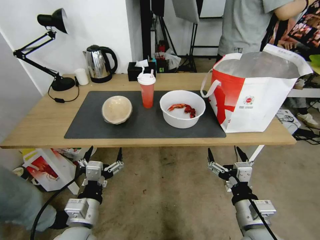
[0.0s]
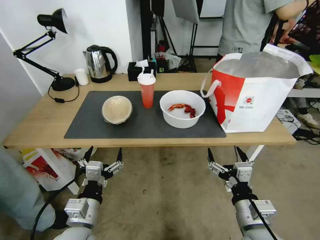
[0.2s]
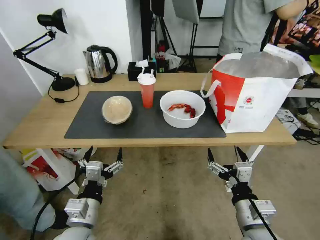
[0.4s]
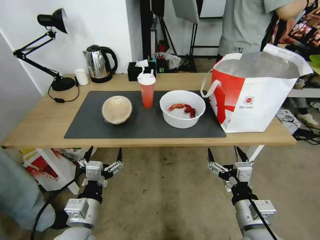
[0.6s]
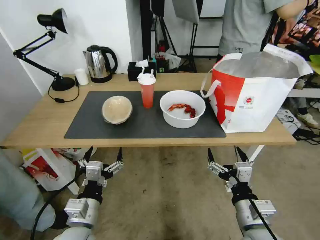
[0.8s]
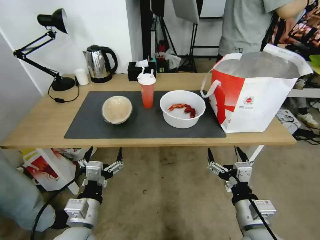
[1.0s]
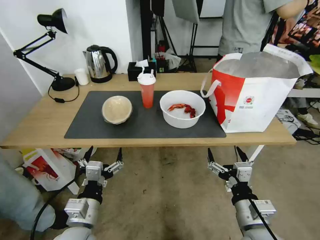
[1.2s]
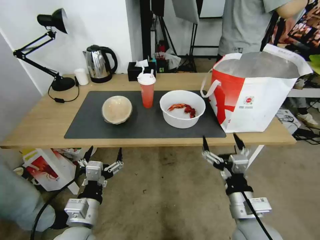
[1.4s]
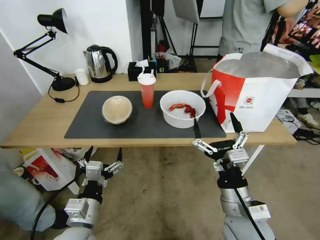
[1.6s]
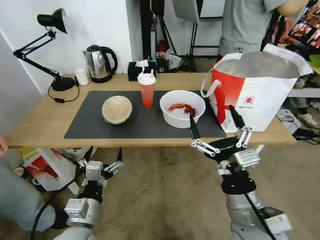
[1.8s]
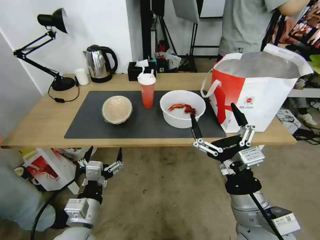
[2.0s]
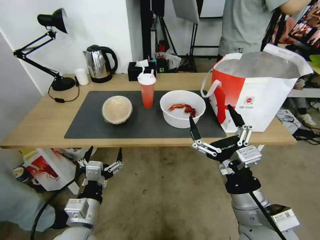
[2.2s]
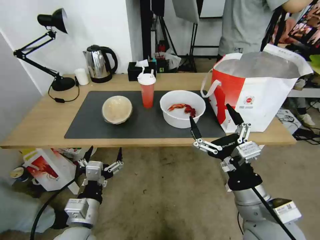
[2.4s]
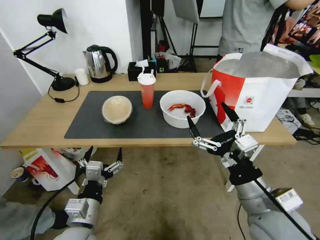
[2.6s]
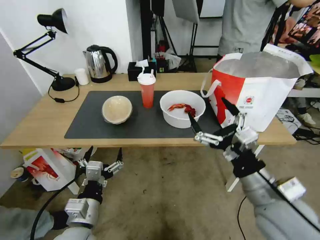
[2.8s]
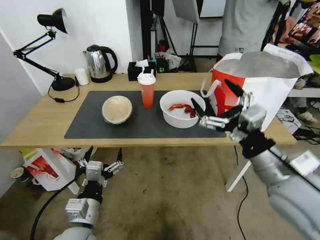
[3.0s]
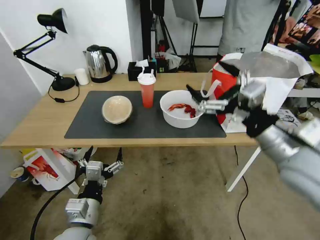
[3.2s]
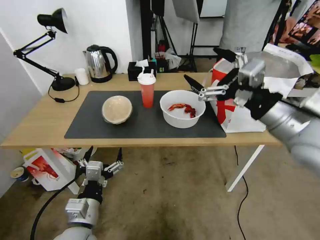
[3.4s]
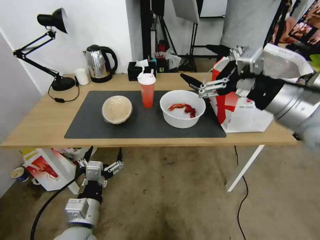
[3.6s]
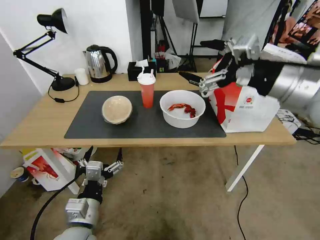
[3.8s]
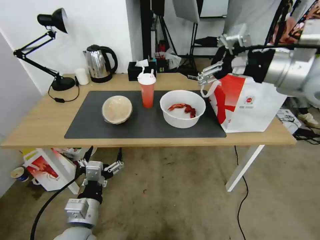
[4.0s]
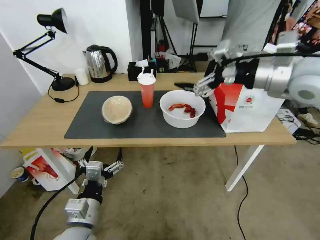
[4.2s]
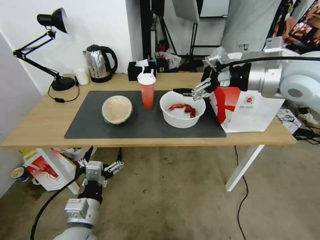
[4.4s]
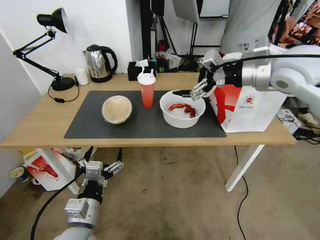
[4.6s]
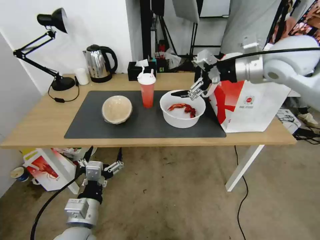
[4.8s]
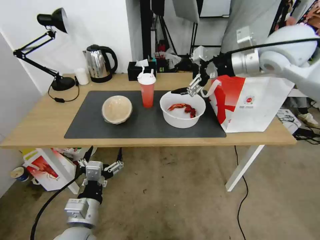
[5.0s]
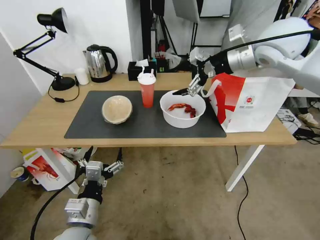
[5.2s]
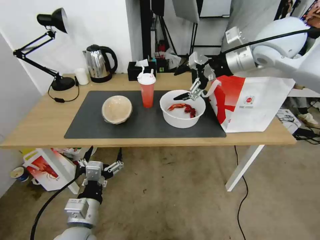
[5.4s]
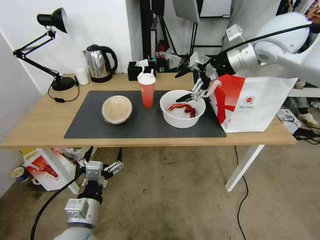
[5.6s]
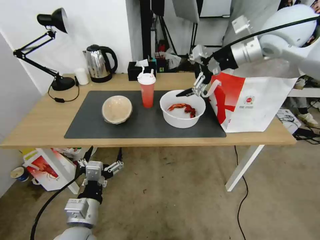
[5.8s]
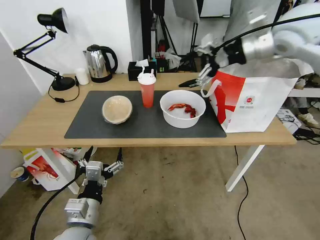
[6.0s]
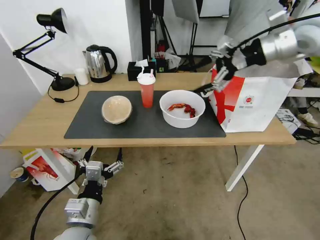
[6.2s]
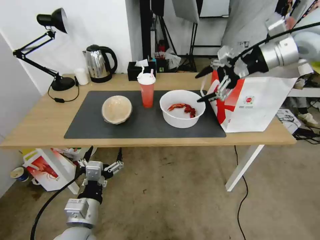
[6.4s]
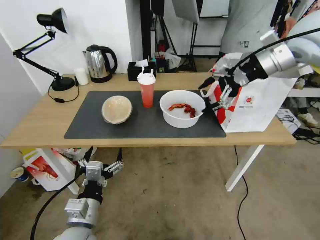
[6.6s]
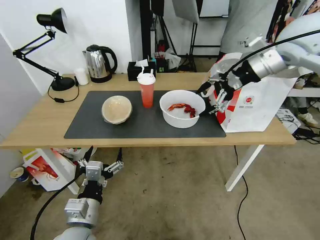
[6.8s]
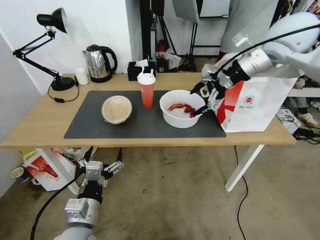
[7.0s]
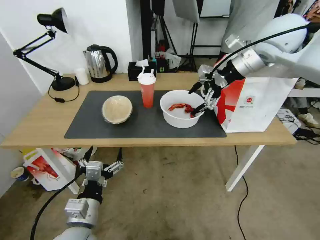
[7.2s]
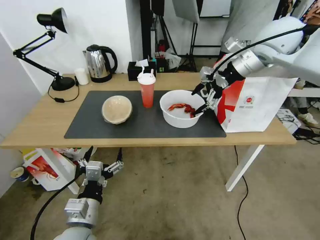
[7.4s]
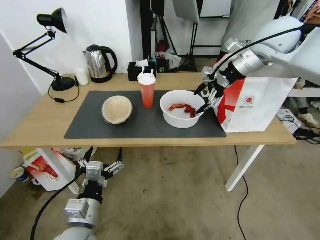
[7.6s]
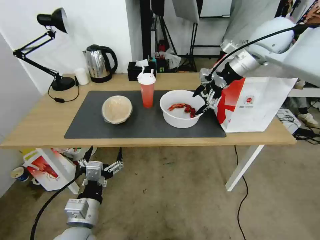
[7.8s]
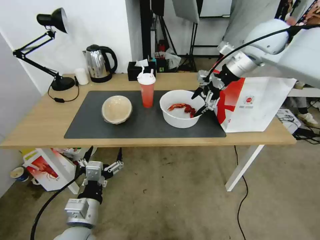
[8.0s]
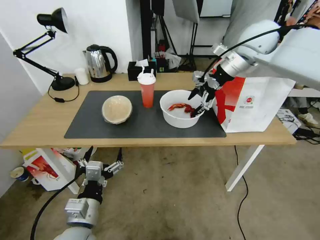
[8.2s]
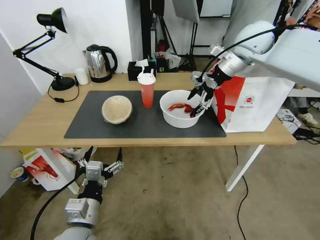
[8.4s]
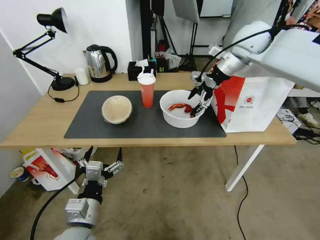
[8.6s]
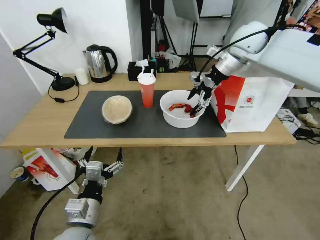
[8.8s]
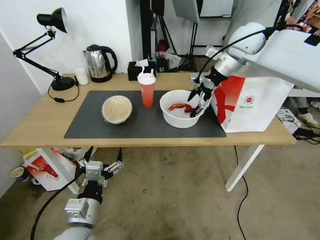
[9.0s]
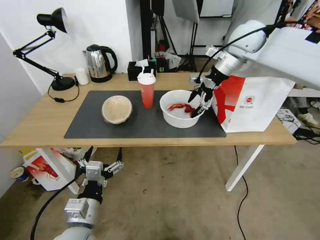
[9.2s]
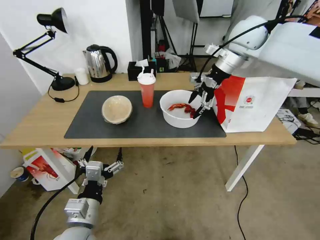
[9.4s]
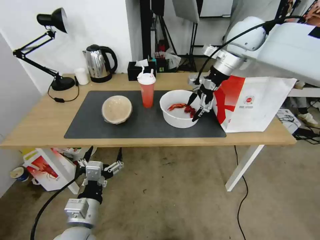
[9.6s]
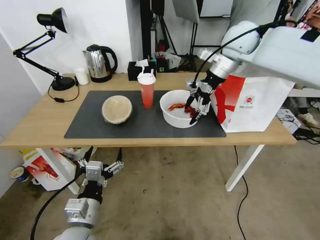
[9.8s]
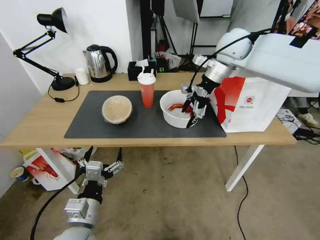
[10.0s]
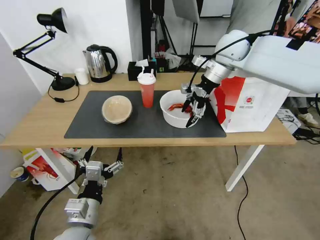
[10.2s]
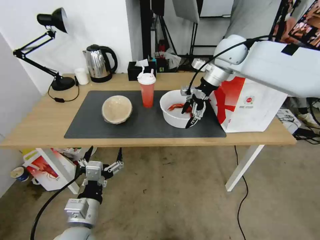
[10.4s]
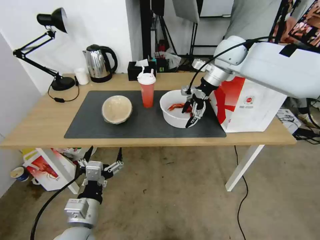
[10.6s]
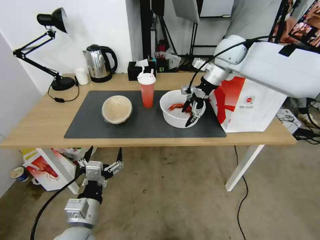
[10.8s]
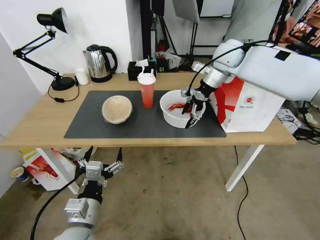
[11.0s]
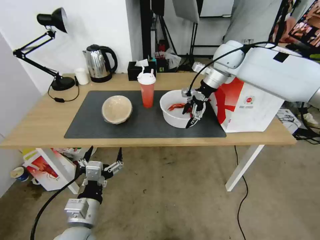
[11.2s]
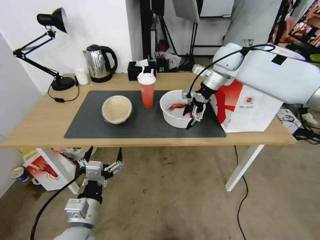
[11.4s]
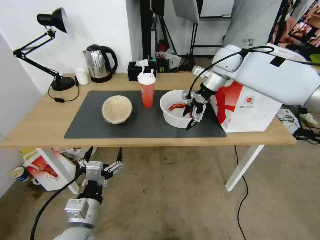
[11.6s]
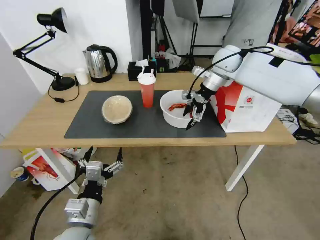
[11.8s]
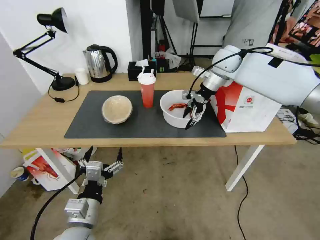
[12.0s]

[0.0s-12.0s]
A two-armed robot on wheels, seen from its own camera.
Task of the whole recording: Pick up the trash from the table and place it into the takeout bag.
1.6s to 3.0s: The right gripper heads upward and to the right, covering some 15 cm.
3.0s to 4.4s: The right gripper is displaced forward and upward by approximately 25 cm.
4.4s to 6.0s: The right gripper moves forward and upward, roughly 10 cm.
6.0s to 7.6s: The right gripper is displaced forward by roughly 5 cm.
7.6s to 9.0s: The right gripper shifts roughly 5 cm forward.
9.0s to 10.4s: There are only small adjustments of the grippers.
10.4s to 12.0s: The right gripper moves approximately 5 cm.

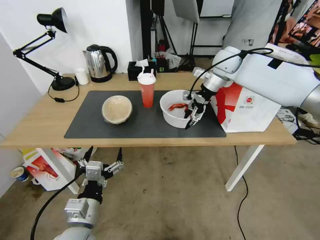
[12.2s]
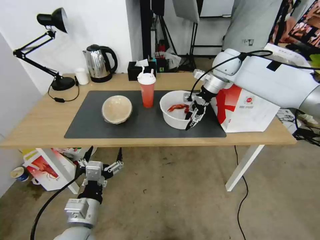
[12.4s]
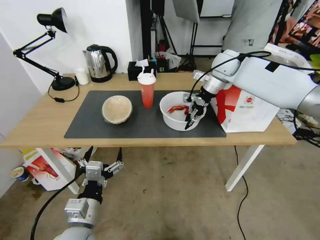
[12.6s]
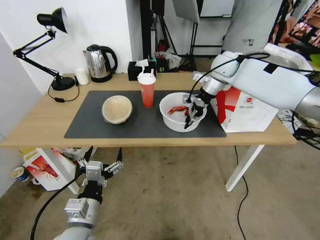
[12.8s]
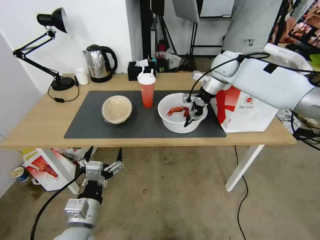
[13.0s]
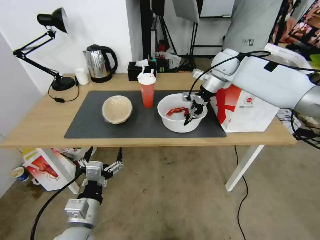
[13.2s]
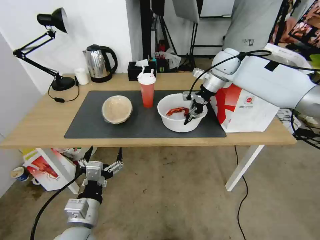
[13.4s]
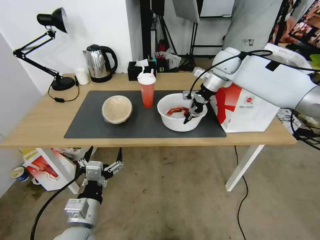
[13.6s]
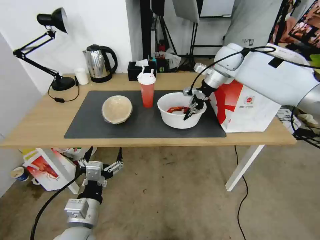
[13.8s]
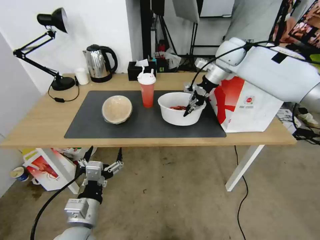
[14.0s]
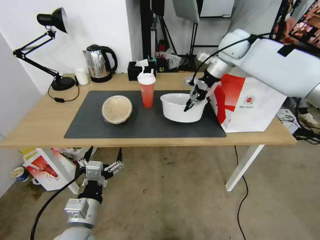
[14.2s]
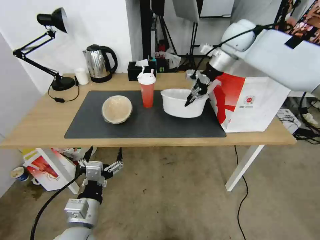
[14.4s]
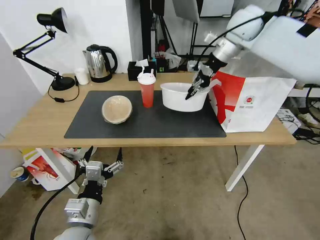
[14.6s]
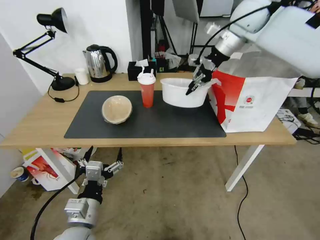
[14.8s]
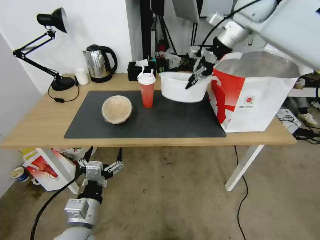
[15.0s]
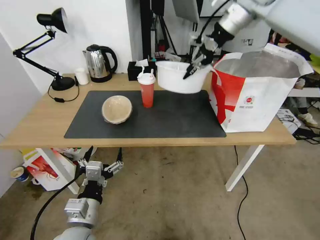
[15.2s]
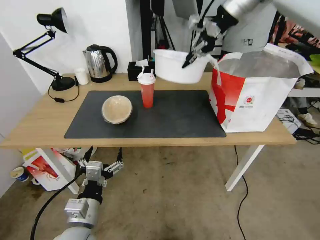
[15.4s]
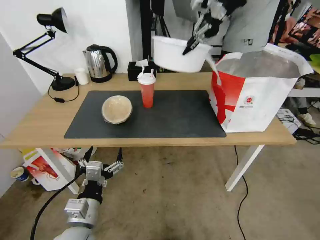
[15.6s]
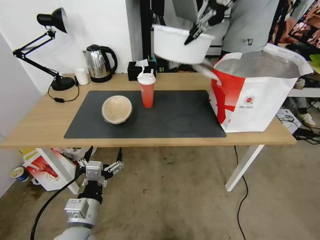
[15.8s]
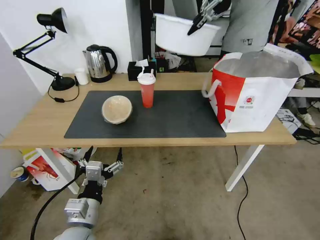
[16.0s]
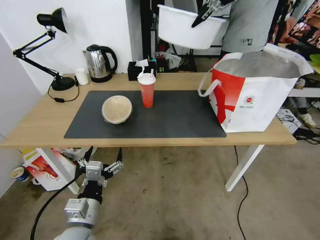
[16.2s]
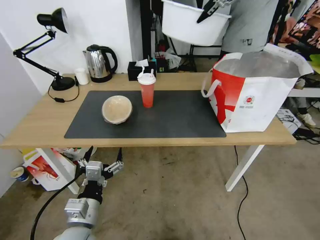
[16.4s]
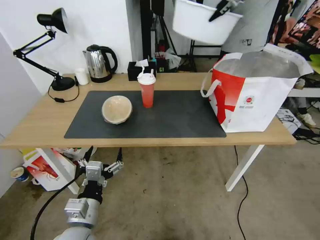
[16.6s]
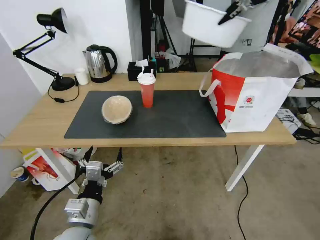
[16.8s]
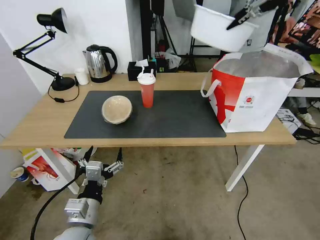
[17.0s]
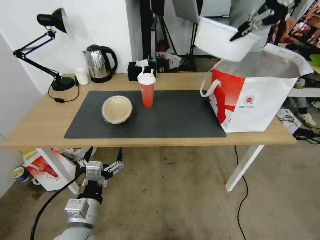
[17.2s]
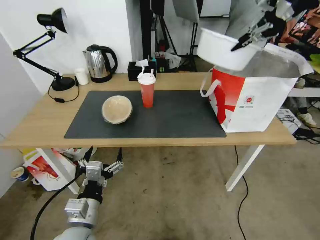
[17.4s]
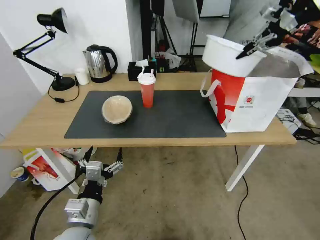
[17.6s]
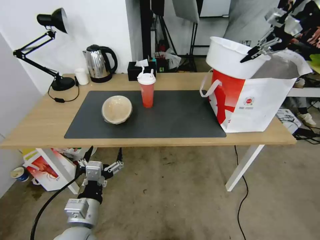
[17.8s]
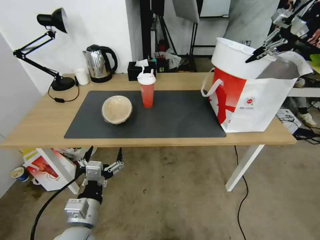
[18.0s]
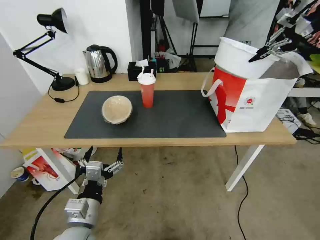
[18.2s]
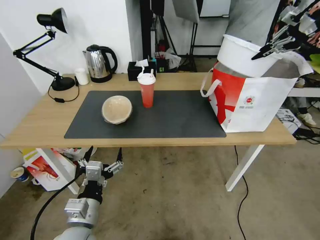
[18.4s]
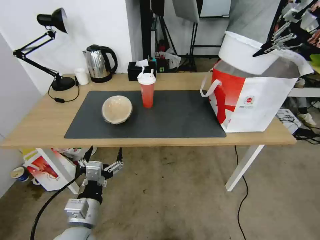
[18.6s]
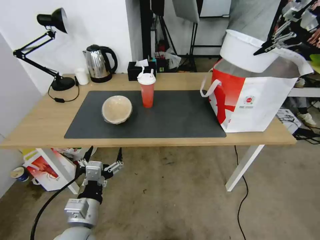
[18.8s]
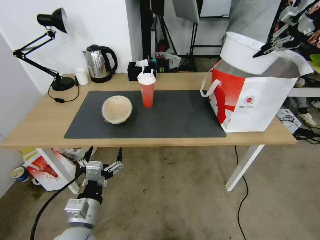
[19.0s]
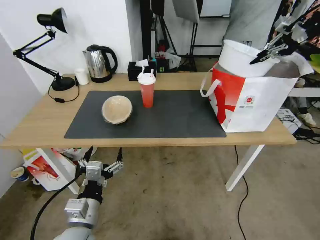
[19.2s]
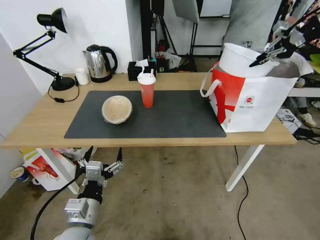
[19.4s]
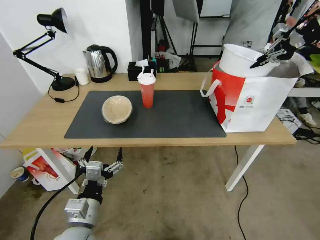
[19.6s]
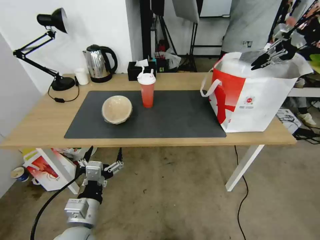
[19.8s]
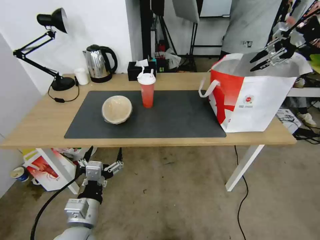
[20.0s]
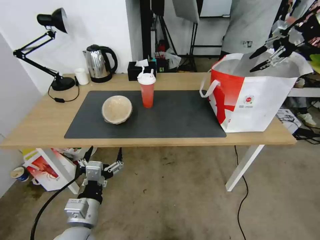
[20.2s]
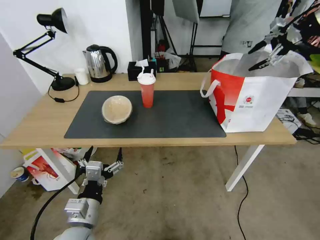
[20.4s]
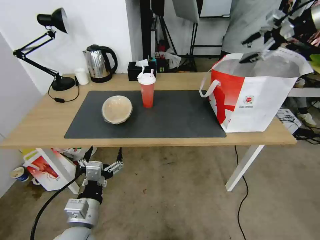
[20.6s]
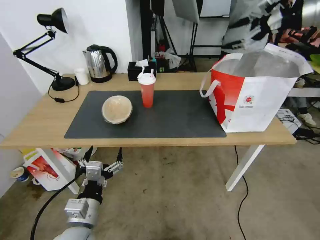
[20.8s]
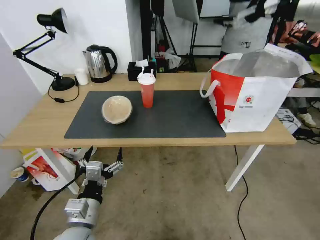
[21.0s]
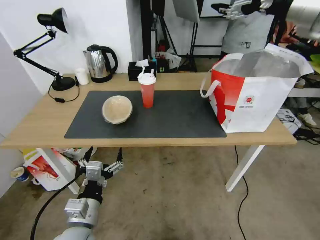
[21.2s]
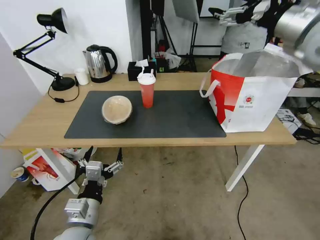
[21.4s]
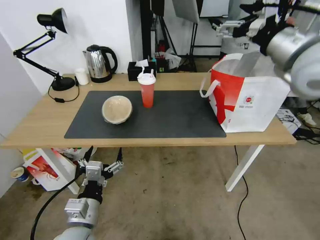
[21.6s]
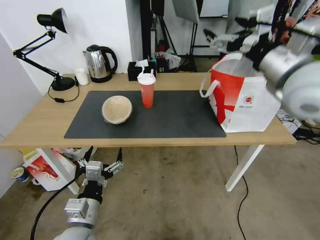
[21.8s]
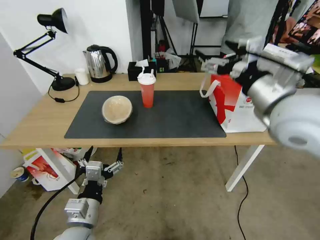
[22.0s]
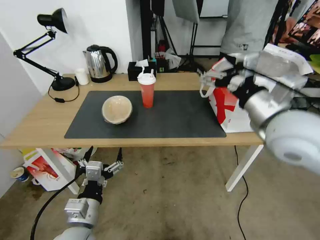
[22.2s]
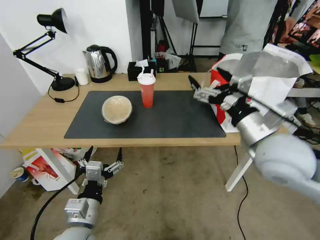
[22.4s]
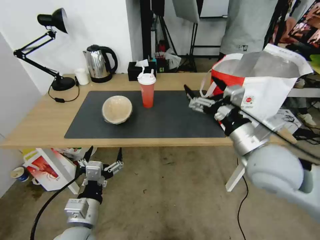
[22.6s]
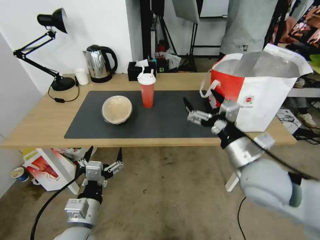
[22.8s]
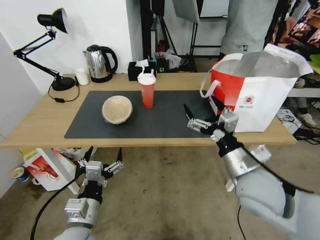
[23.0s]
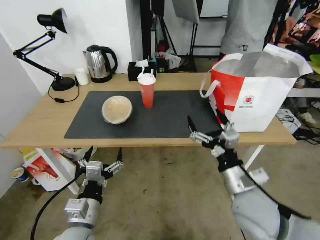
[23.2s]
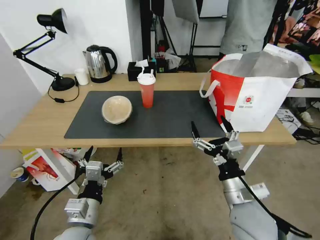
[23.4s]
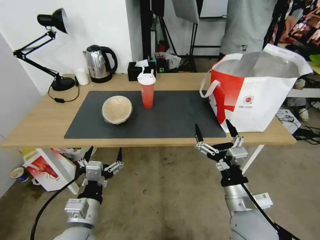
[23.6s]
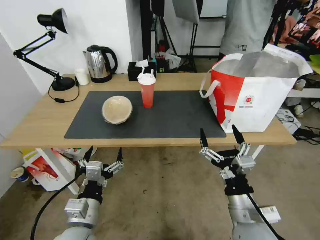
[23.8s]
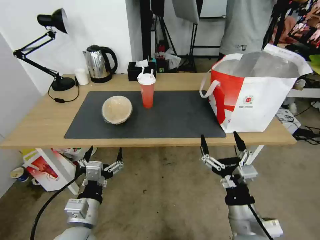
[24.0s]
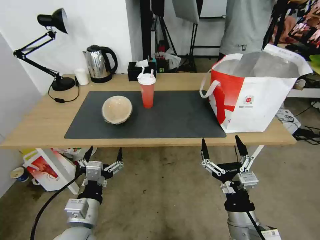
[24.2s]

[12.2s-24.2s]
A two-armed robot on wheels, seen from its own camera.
Task of the whole recording: Pick up the trash from the table and place it into the takeout bag.
12.2s to 13.8s: The right gripper closes.
13.8s to 15.2s: The right gripper shifts roughly 20 cm upward.
15.2s to 16.6s: The right gripper moves upward and to the right, some 15 cm.
16.6s to 18.2s: The right gripper heads to the right and downward, covering approximately 20 cm.
18.2s to 19.8s: The grippers stay close to where they were, moving slightly.
19.8s to 21.2s: The right gripper travels to the left and backward by roughly 15 cm, and opens up.
21.2s to 22.6s: The right gripper heads downward, backward and to the left, covering approximately 35 cm.
22.6s to 24.2s: The right gripper shifts roughly 20 cm downward and backward.
